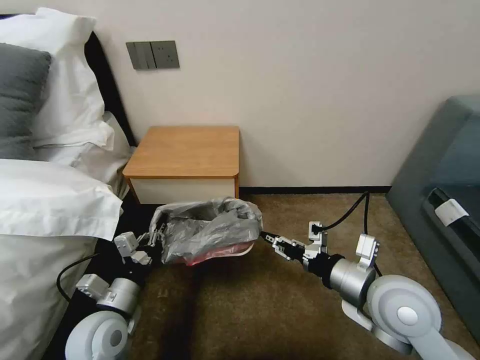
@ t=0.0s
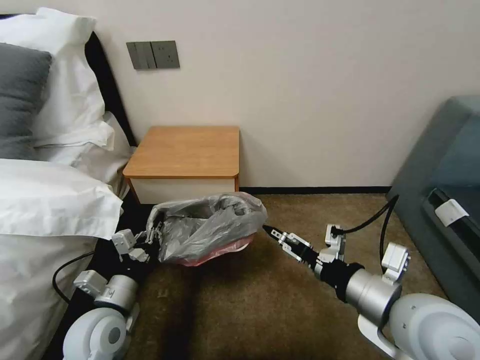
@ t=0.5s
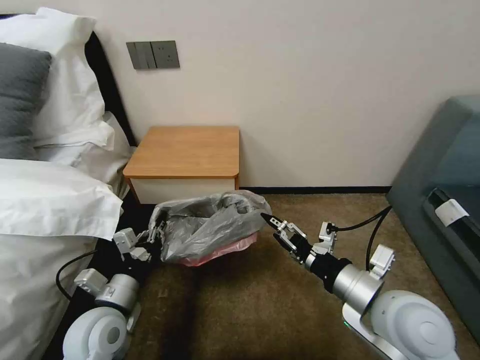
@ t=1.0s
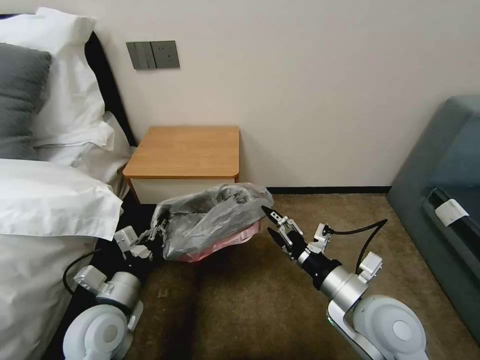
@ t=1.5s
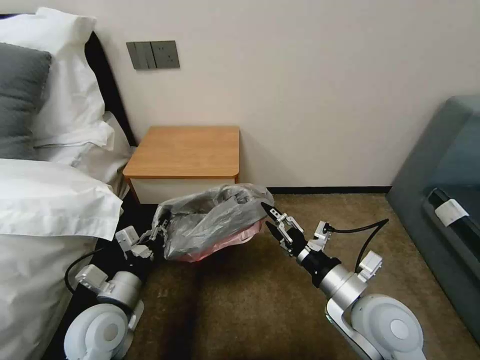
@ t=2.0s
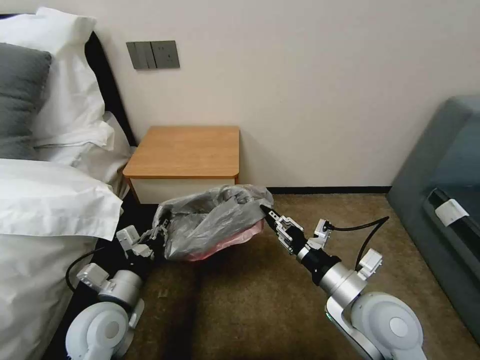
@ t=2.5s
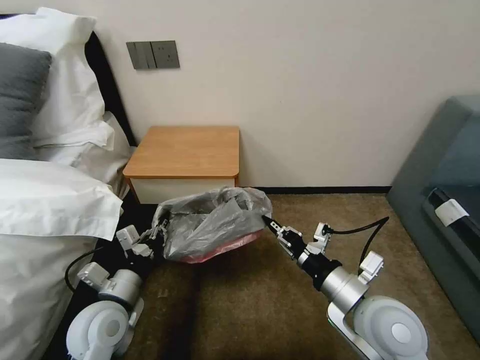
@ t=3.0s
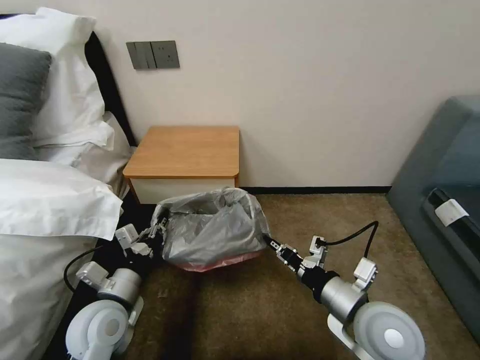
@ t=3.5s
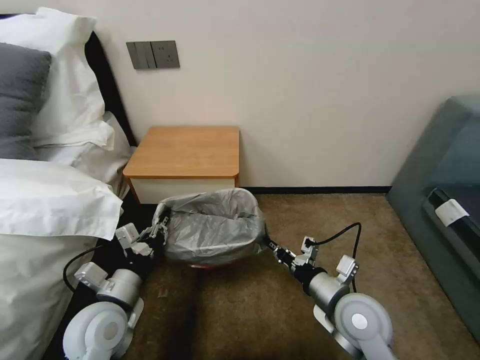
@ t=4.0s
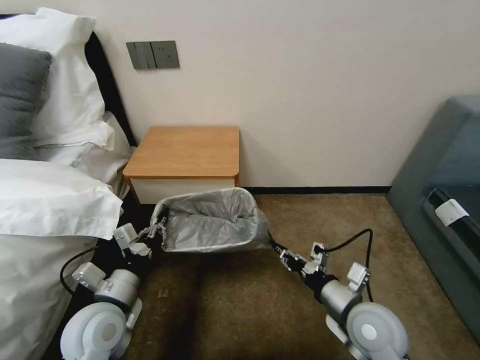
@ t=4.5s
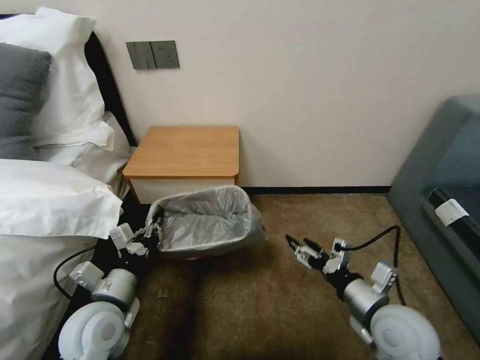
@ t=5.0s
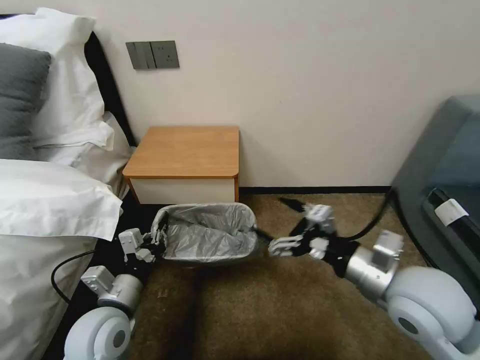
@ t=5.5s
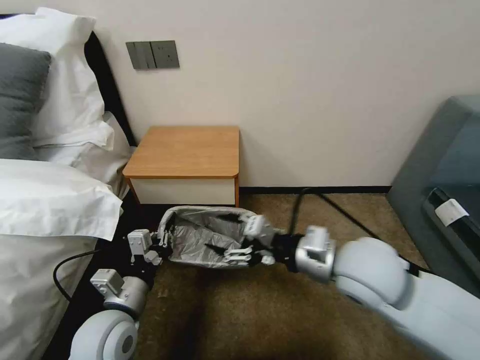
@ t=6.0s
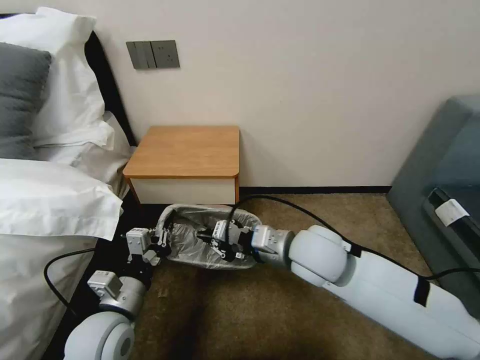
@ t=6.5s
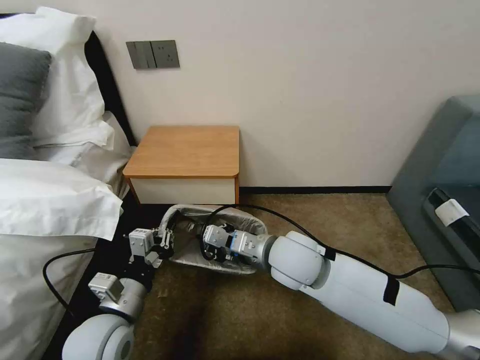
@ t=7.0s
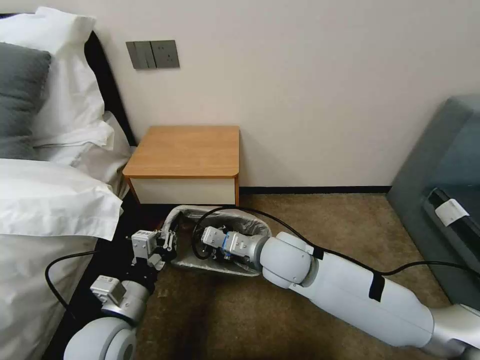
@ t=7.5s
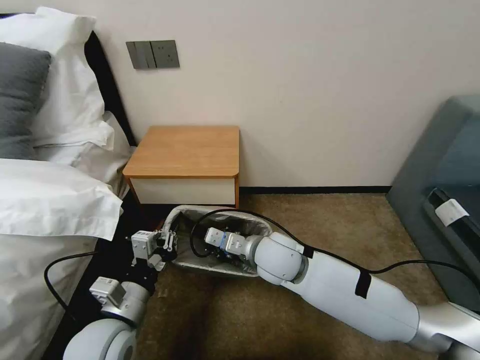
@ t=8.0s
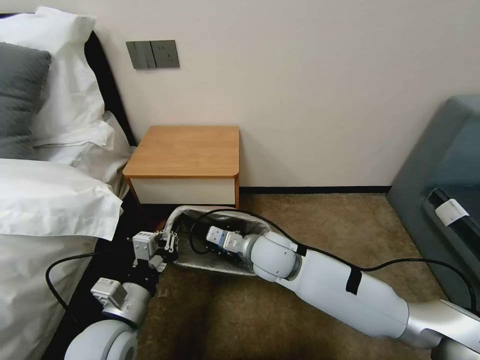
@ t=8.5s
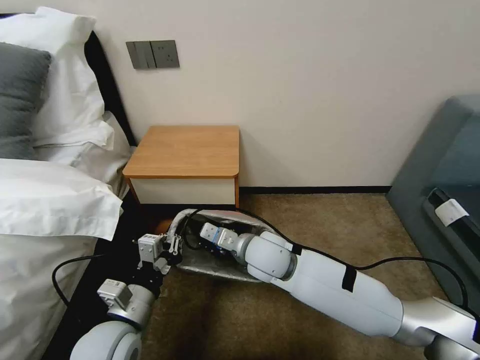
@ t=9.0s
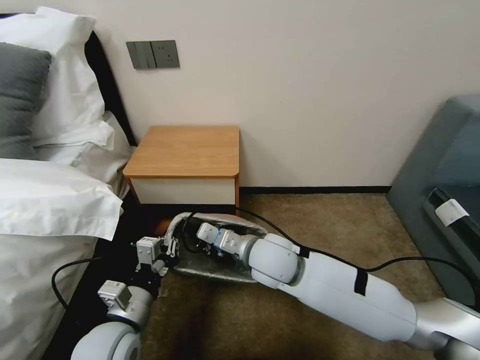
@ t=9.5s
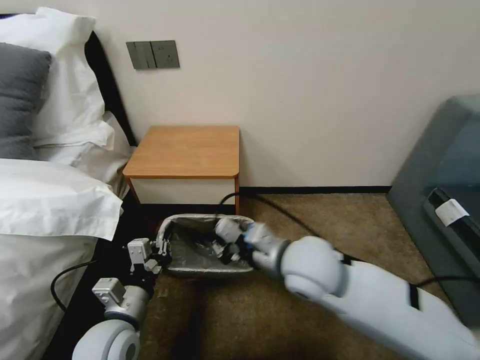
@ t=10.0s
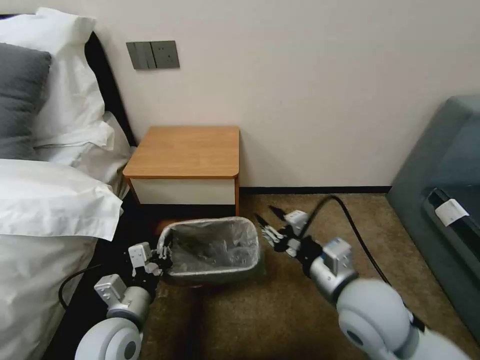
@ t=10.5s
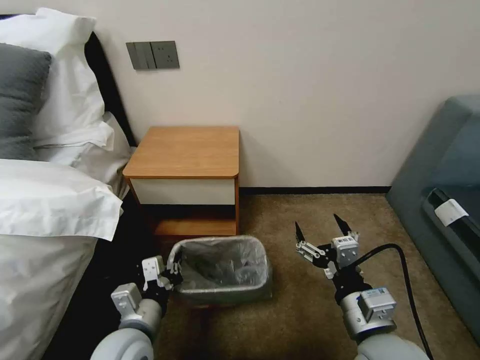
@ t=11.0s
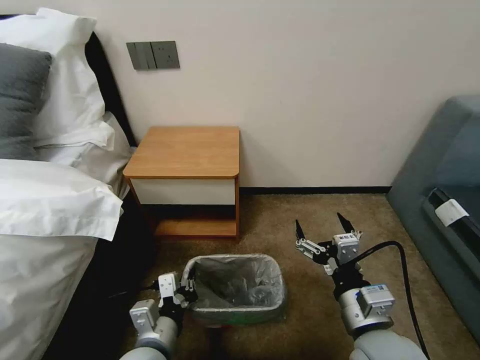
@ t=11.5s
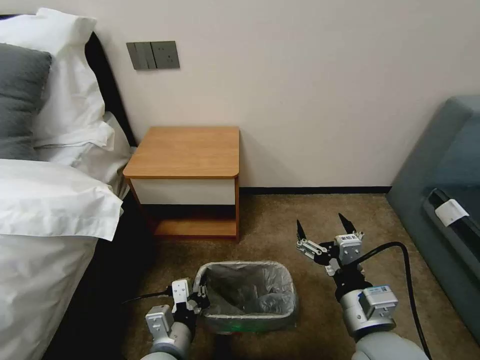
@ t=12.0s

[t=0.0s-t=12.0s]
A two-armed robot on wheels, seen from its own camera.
Task of the whole recording: Pick up the garbage bag from the table and place it over the trash can.
t=0.0s to t=2.0s: The right gripper opens its fingers.
t=2.0s to t=4.0s: The right gripper moves downward, approximately 5 cm, and closes up.
t=4.0s to t=6.0s: The right gripper moves upward, approximately 15 cm, and opens.
t=6.0s to t=8.0s: The right gripper travels to the left, downward and forward by about 15 cm, and closes.
t=8.0s to t=10.0s: The right gripper shifts some 10 cm upward and backward.
t=10.0s to t=12.0s: The right gripper travels backward and to the right by roughly 15 cm, and opens up. Meanwhile the left gripper is displaced to the right by roughly 10 cm.

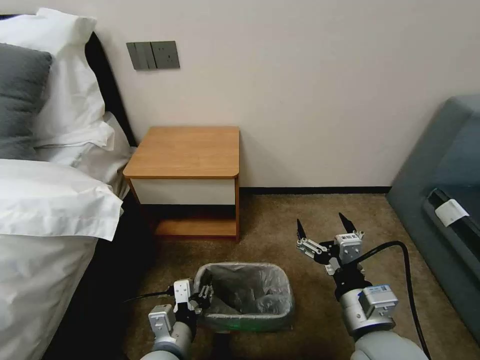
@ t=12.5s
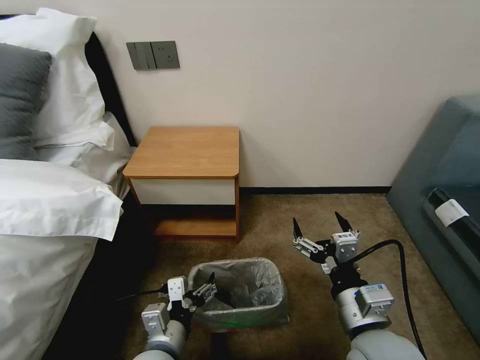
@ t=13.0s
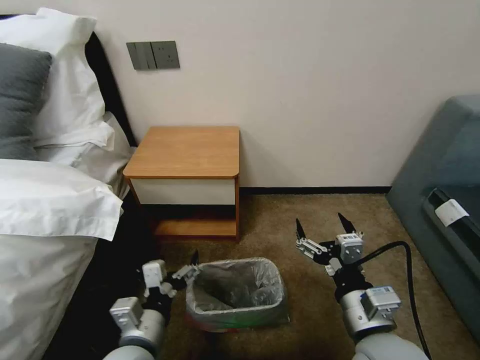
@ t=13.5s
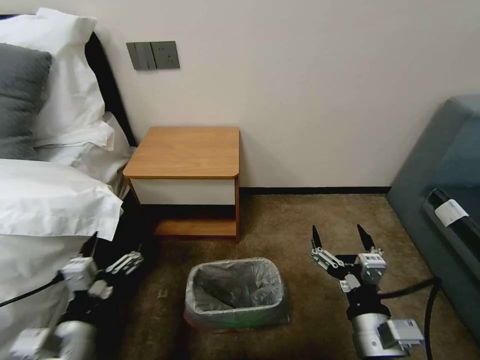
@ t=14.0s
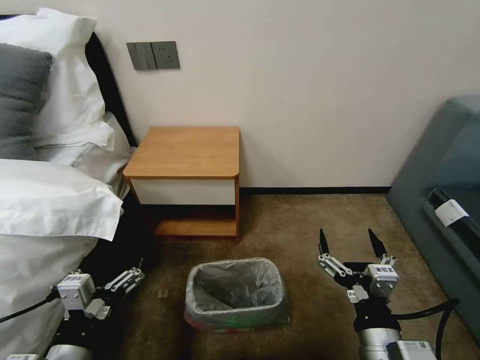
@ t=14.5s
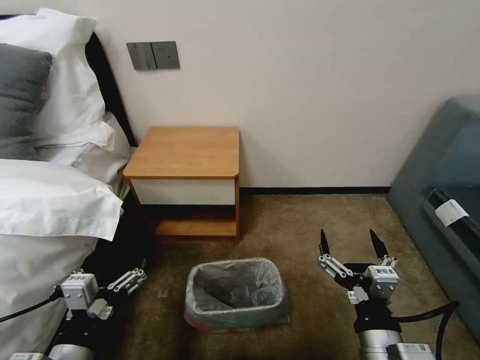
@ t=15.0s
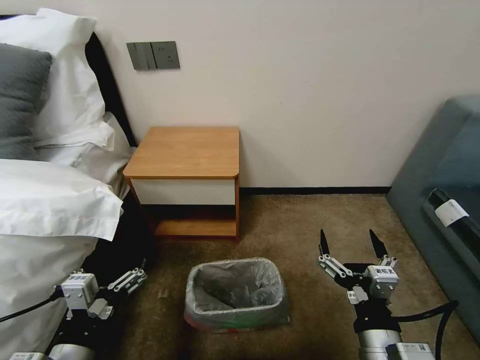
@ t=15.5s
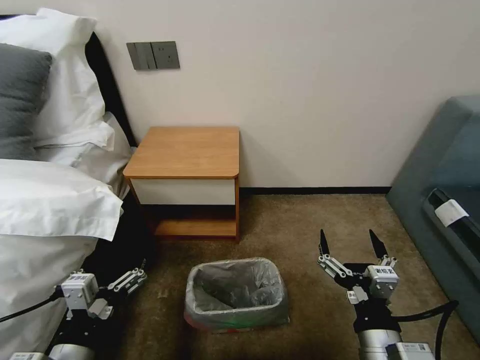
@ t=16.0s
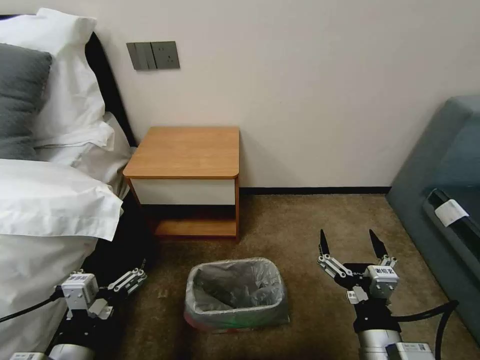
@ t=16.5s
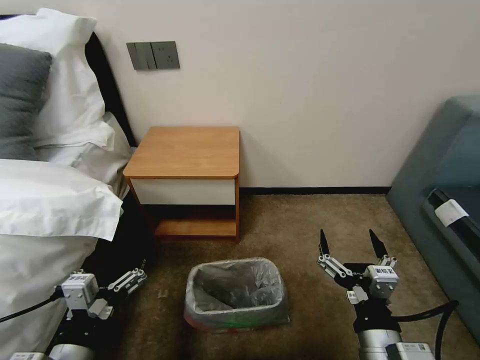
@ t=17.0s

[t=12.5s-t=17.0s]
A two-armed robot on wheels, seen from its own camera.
Task of the whole recording: Pick up the garbage bag from the table and place it over the trash can.
t=12.5s to t=14.5s: The right gripper shifts roughly 5 cm backward. Meanwhile the left gripper travels to the left, upward and backward by about 15 cm, and opens.
t=14.5s to t=17.0s: Both grippers stay about where they are.

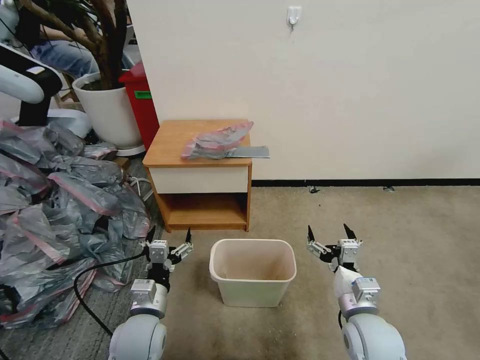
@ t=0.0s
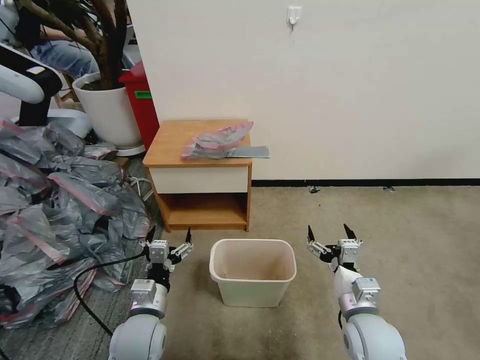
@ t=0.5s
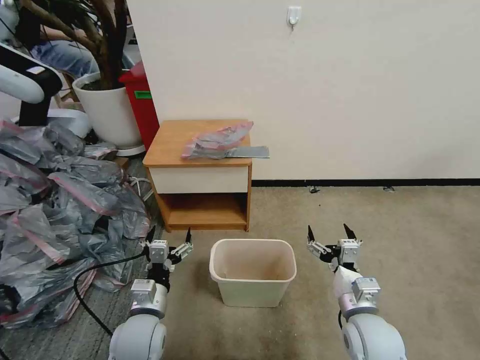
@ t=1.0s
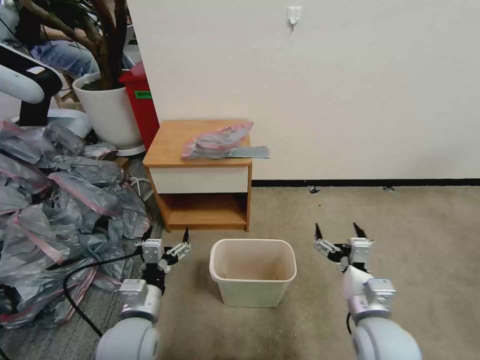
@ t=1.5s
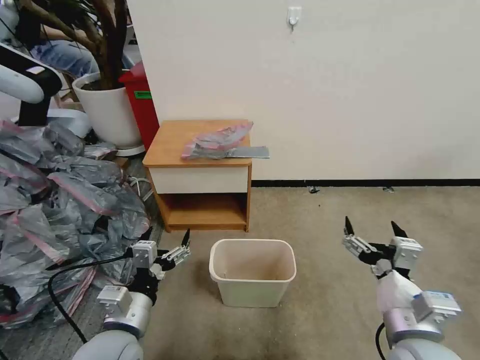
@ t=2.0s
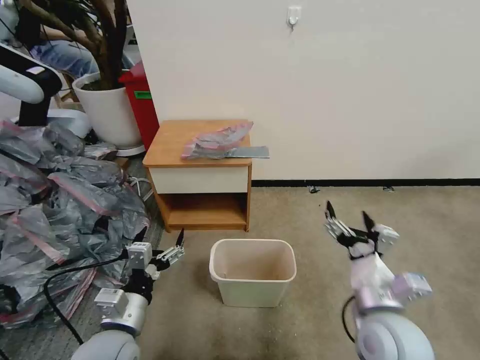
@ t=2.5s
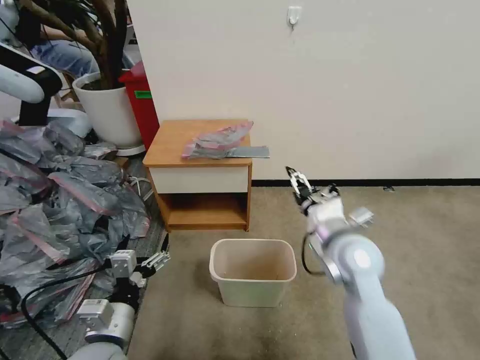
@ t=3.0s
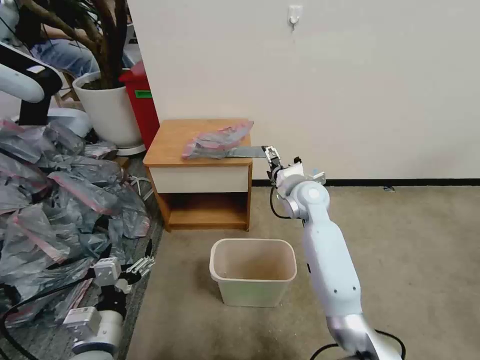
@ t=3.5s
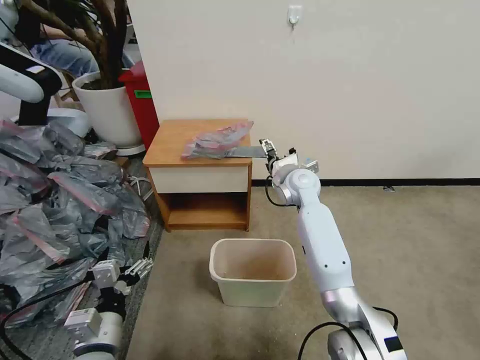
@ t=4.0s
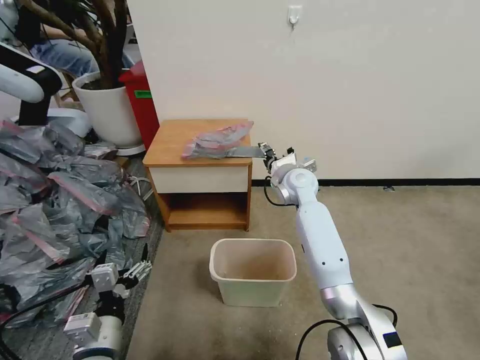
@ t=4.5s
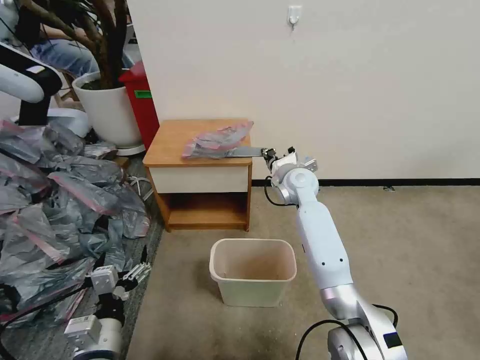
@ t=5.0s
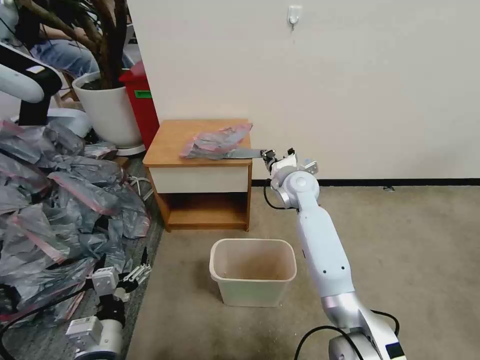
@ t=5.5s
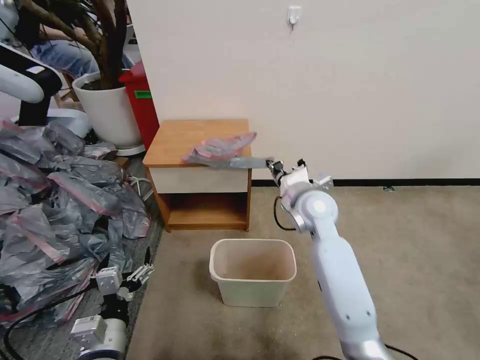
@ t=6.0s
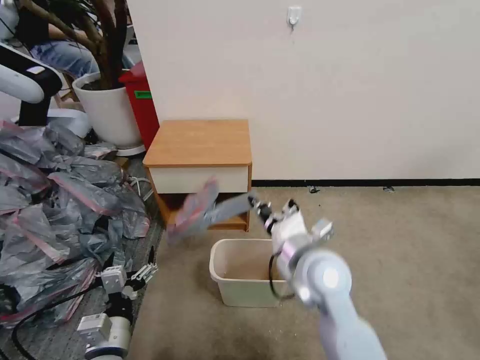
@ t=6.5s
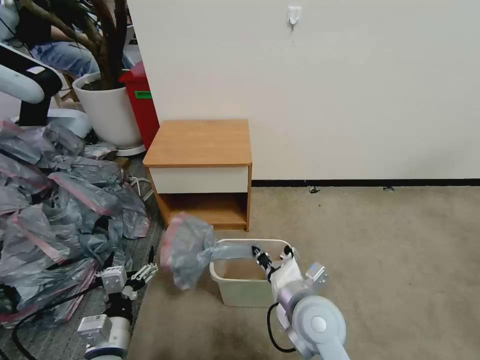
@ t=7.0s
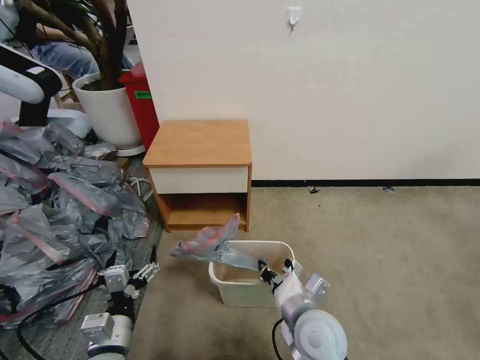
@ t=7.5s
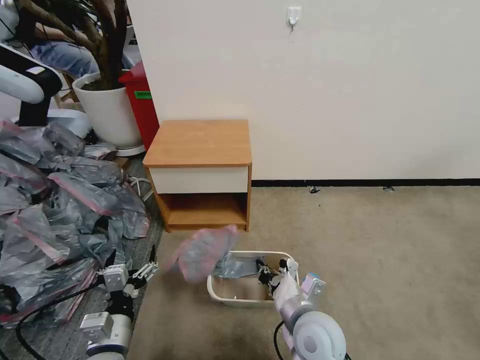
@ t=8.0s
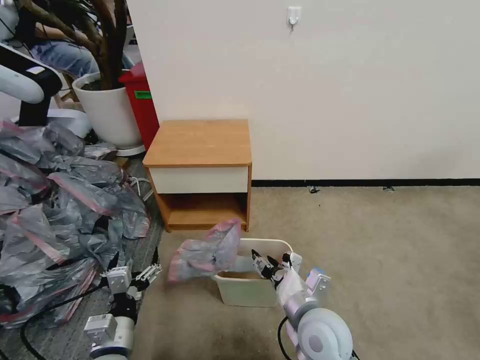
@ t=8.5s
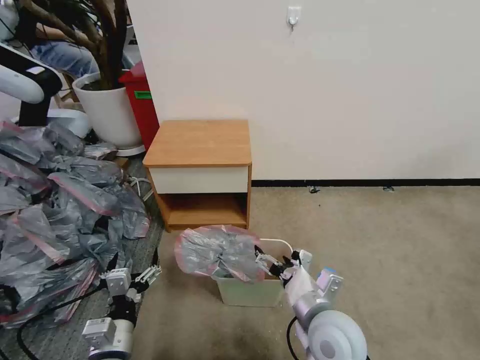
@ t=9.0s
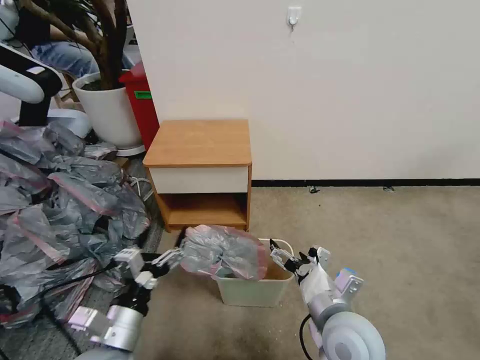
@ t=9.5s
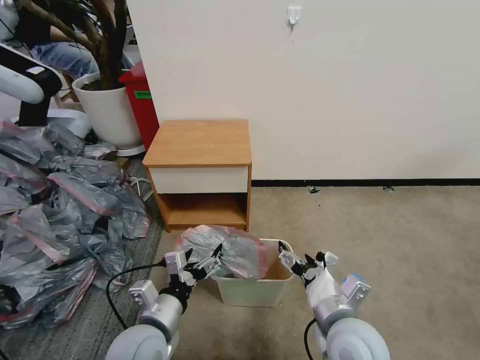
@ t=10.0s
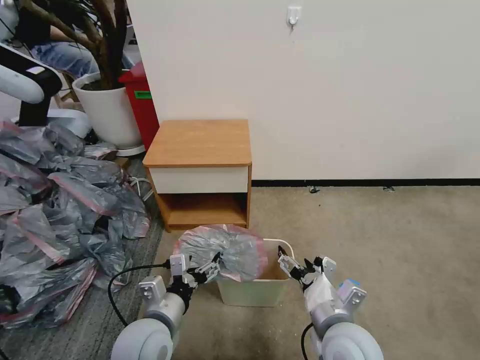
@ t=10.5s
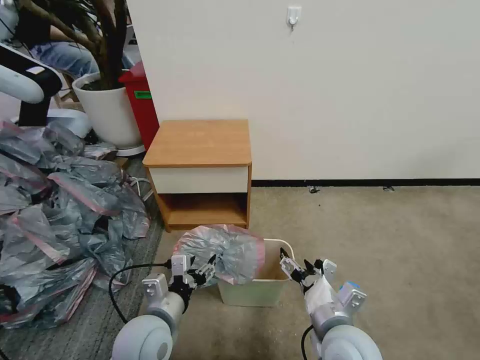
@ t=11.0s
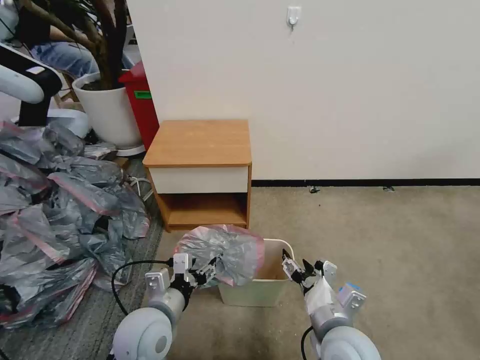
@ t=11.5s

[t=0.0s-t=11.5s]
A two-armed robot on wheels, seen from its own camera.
Task of the whole recording: Pick up the garbage bag from the table and place it over the trash can.
t=2.0s to t=4.0s: The left gripper changes place by about 5 cm, while the right gripper is displaced forward by some 40 cm.
t=4.0s to t=6.0s: The right gripper shifts about 10 cm backward, and closes its fingers.
t=6.0s to t=7.5s: The right gripper heads backward and downward, covering some 25 cm.
t=7.5s to t=9.5s: The left gripper moves upward, approximately 5 cm, while the right gripper changes place by about 5 cm, and opens up.
t=9.5s to t=11.5s: The left gripper heads forward and to the right, covering roughly 10 cm.
